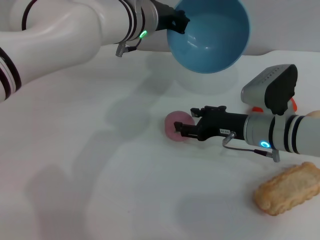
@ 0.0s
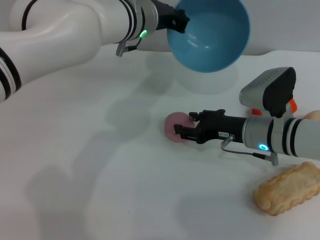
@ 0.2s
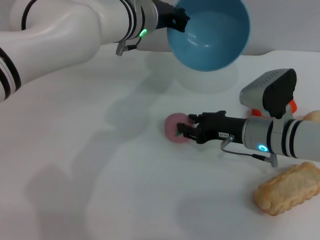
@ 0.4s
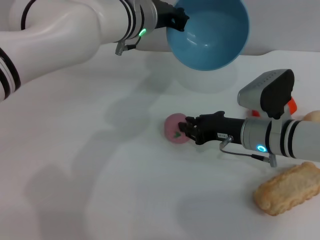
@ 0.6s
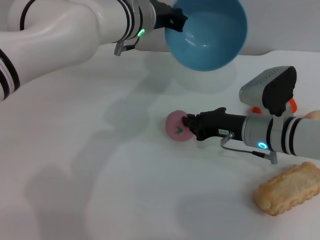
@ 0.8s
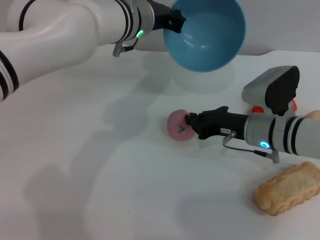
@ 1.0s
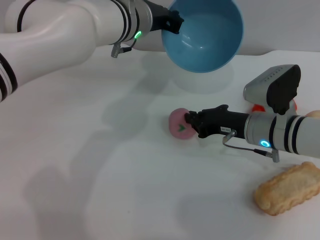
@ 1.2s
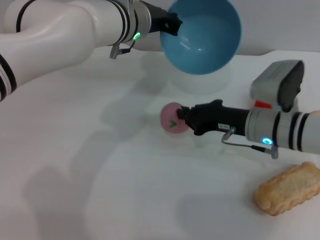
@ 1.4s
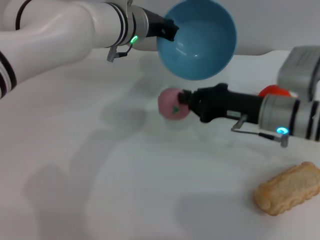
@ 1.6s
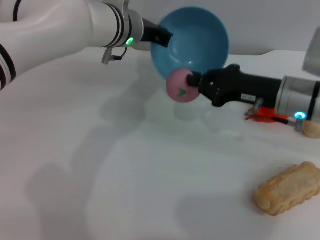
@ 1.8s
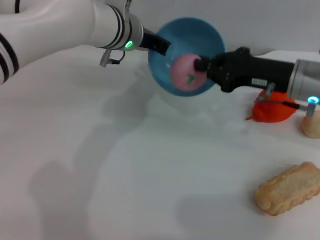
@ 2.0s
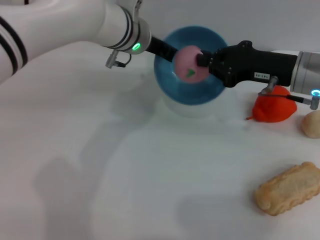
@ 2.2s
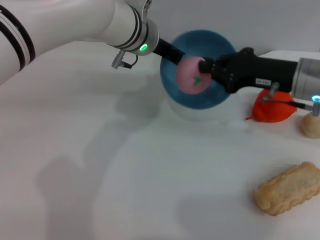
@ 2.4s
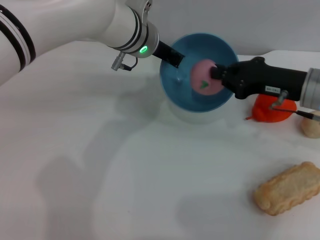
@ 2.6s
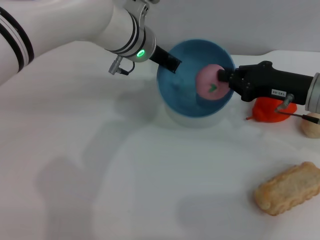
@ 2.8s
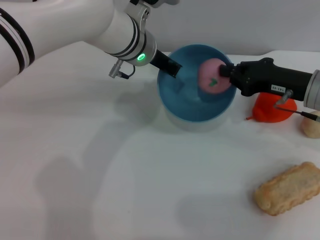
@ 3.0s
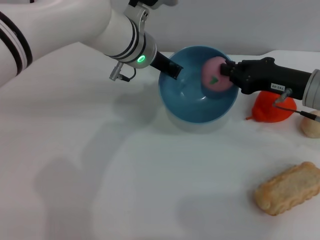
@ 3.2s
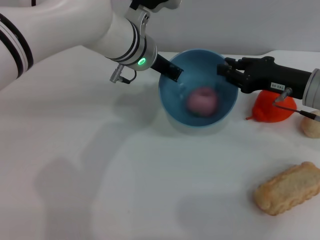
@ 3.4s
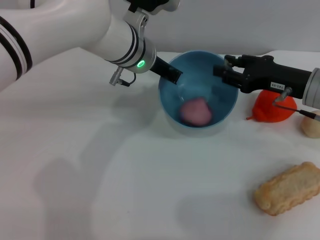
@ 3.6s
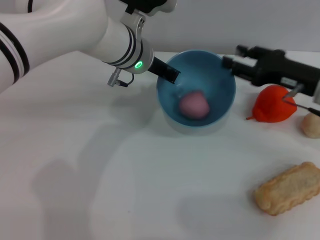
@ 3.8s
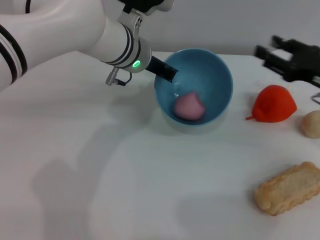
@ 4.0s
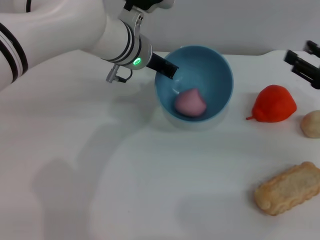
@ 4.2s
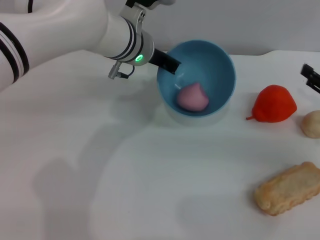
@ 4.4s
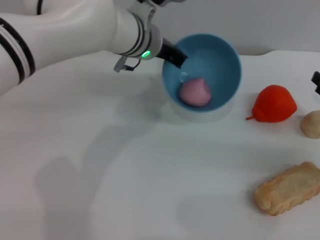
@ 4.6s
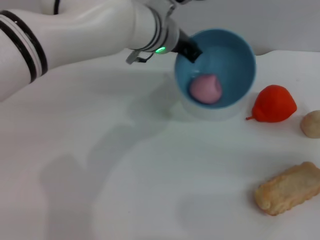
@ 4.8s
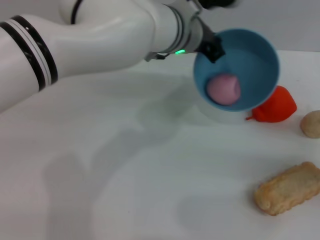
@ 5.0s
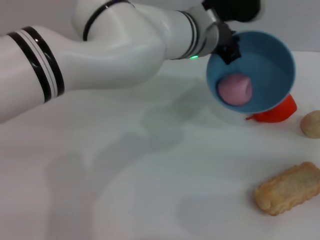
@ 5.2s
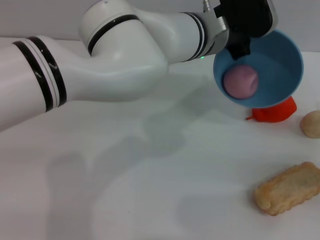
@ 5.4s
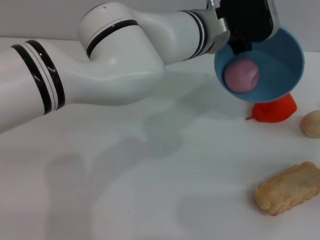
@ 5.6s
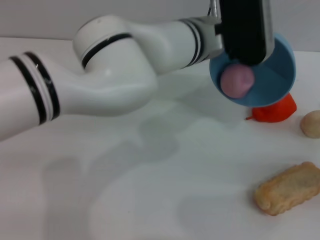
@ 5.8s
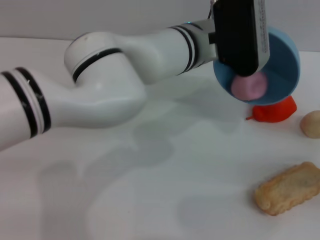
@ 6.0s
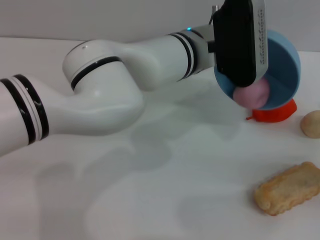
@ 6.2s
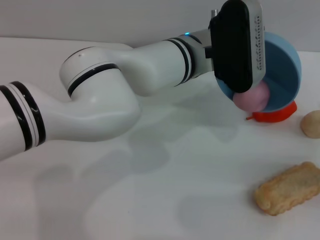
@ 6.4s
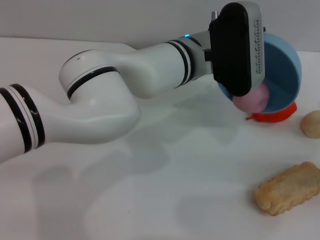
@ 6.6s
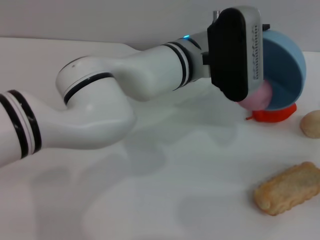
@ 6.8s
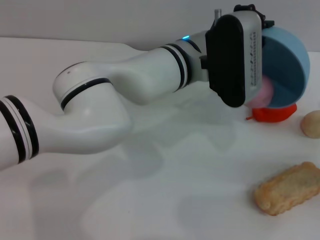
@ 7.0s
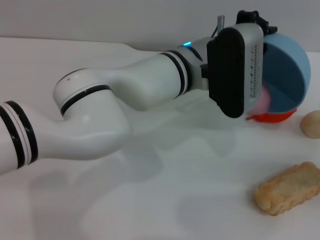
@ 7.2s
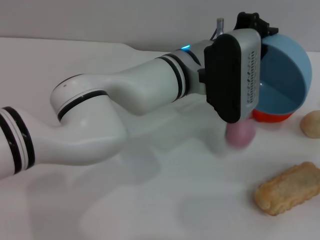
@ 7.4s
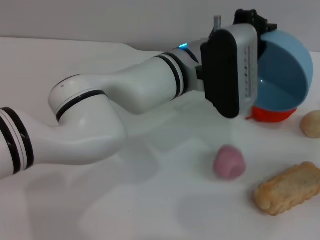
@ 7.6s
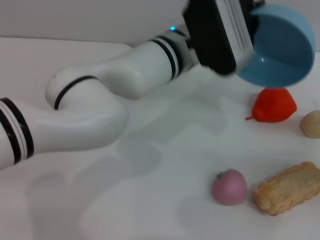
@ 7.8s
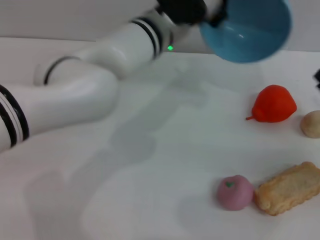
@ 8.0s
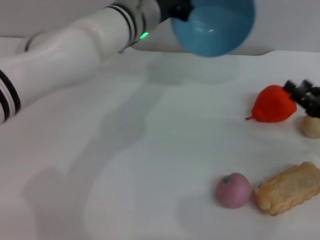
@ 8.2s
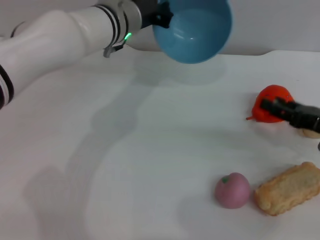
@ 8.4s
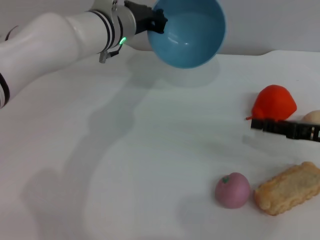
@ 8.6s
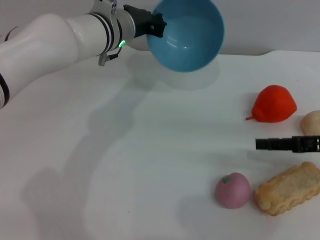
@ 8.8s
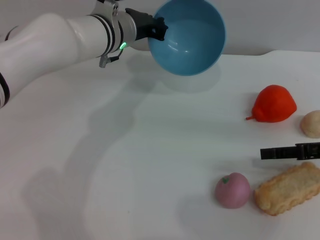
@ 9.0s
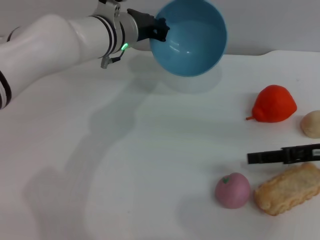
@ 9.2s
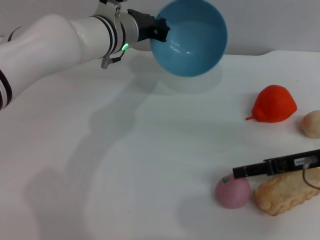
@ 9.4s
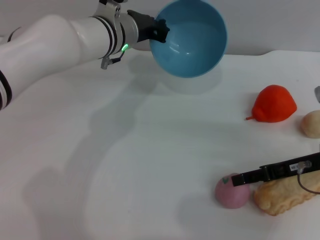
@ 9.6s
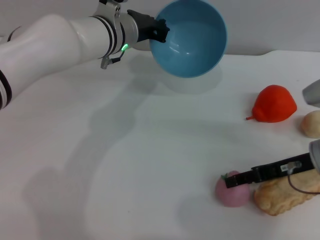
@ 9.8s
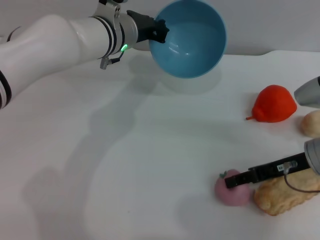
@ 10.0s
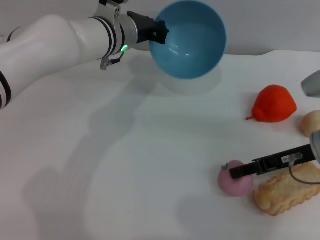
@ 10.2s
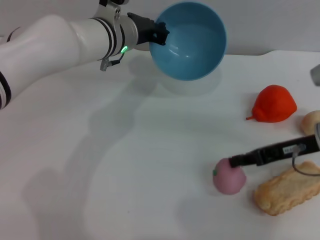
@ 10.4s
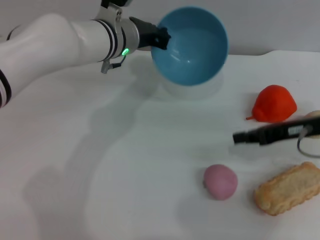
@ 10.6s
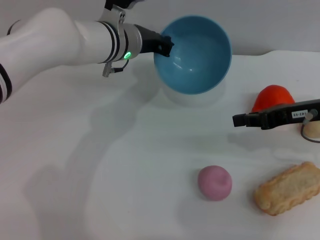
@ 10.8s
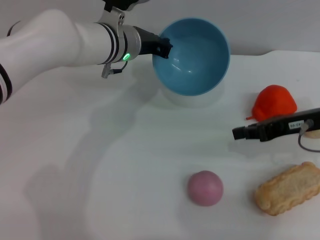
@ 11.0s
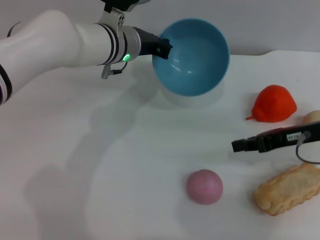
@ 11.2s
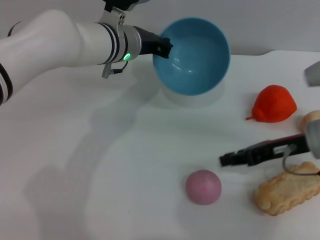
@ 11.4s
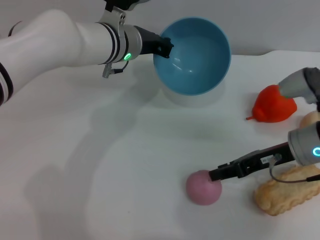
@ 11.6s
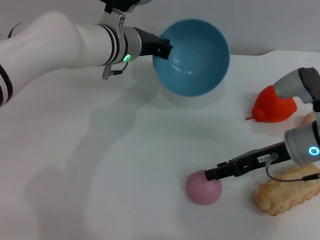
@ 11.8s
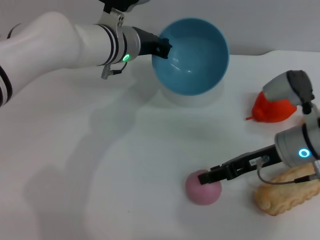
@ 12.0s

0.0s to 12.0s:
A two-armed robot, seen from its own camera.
Task of the whole recording: put the peach into the blue bowl and pour it out repeatedly.
Step, 1.8s to 3.8s: Place the peach into the bowl.
Step, 4.2s to 7.6s: Pour the peach out of bowl.
0.0s to 1.6s: The right gripper closes up.
1.6s to 3.0s: The right gripper shifts some 5 cm to the right.
3.0s to 4.4s: The right gripper moves to the right and backward, roughly 10 cm, and opens its fingers.
4.4s to 6.0s: The left gripper is displaced to the right by about 10 cm; the right gripper ends up roughly 5 cm from where it was.
7.6s to 9.0s: The left gripper travels to the left and forward by about 15 cm. Meanwhile the right gripper moves to the left, about 5 cm.
9.0s to 10.4s: The right gripper moves to the left, roughly 5 cm, and closes.
10.4s to 12.0s: The right gripper moves about 5 cm, and closes, then opens again.

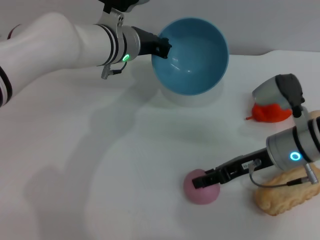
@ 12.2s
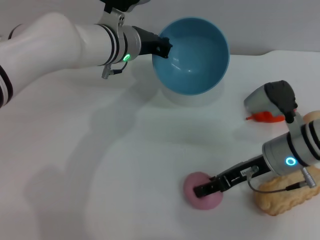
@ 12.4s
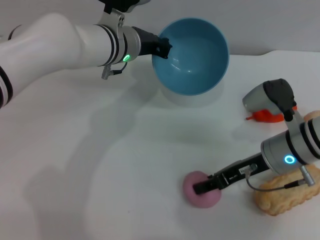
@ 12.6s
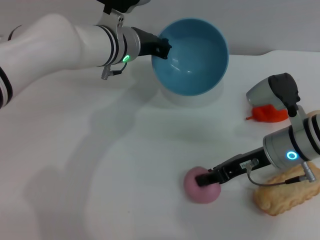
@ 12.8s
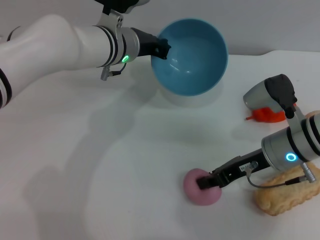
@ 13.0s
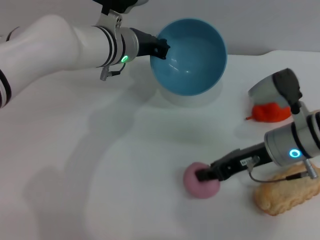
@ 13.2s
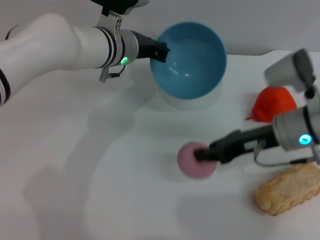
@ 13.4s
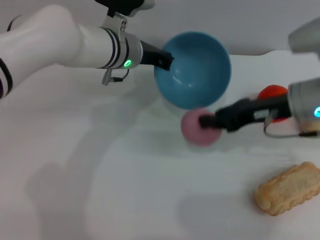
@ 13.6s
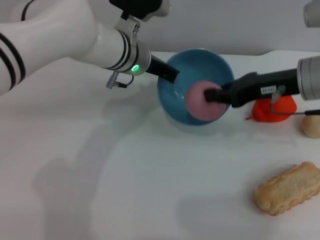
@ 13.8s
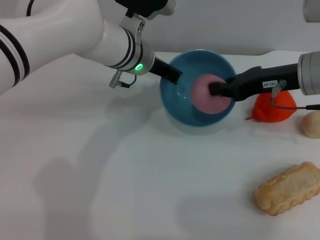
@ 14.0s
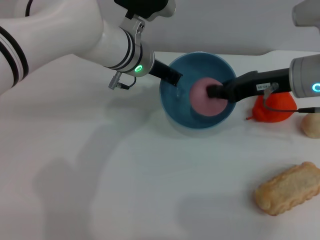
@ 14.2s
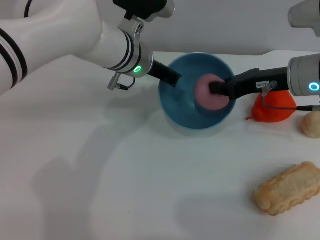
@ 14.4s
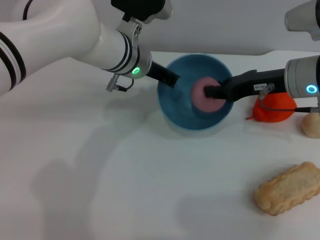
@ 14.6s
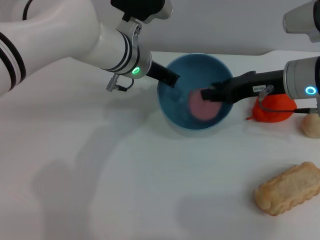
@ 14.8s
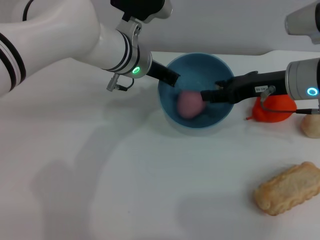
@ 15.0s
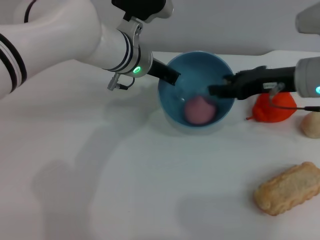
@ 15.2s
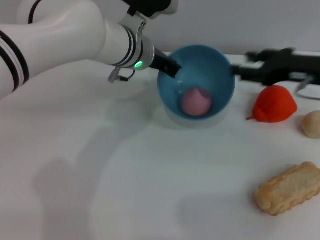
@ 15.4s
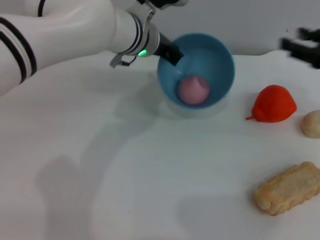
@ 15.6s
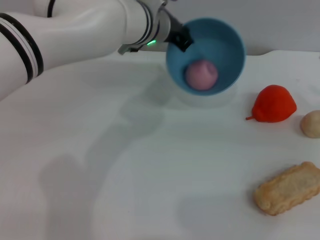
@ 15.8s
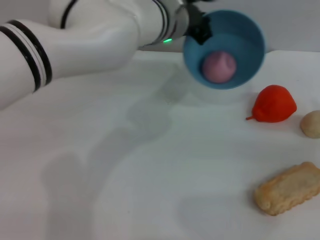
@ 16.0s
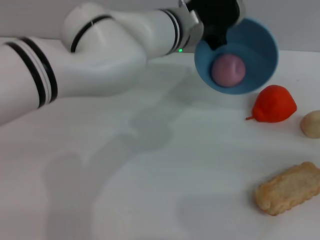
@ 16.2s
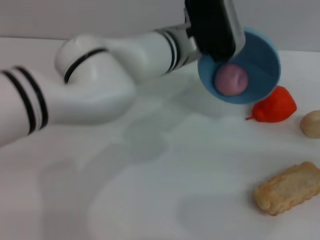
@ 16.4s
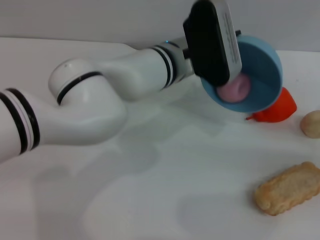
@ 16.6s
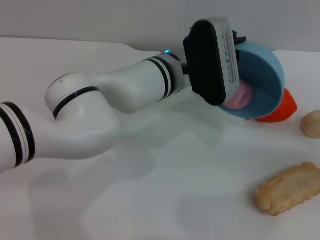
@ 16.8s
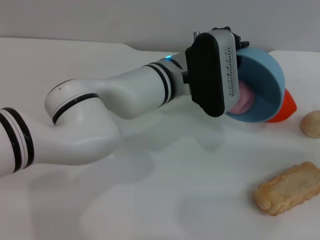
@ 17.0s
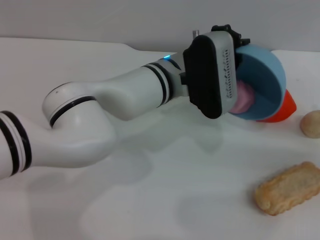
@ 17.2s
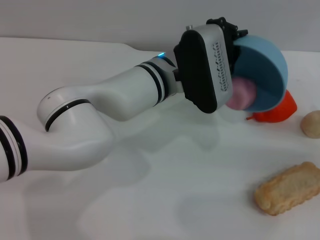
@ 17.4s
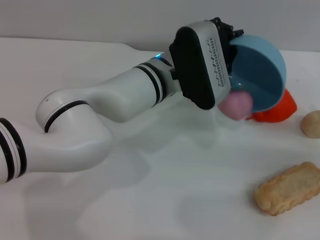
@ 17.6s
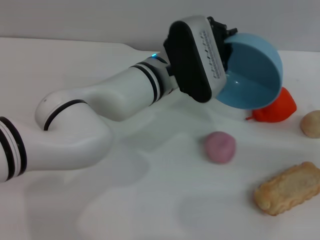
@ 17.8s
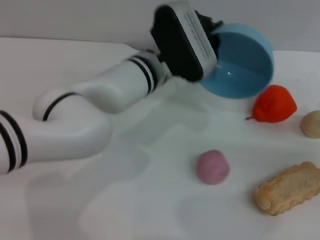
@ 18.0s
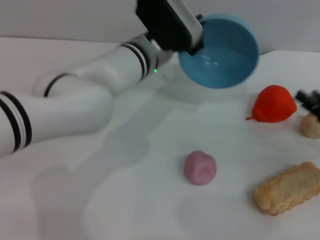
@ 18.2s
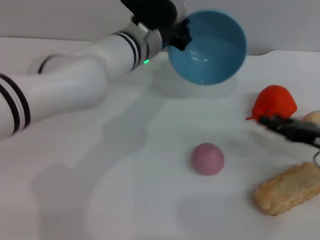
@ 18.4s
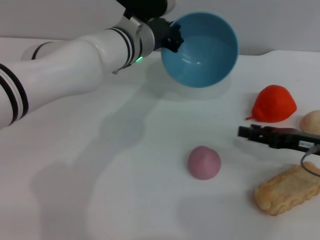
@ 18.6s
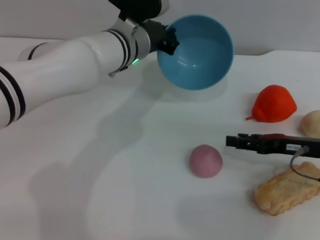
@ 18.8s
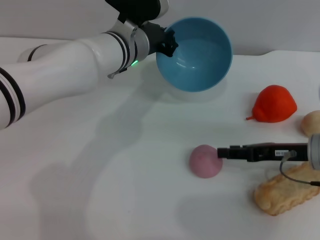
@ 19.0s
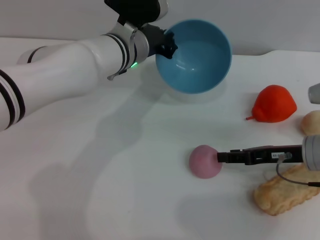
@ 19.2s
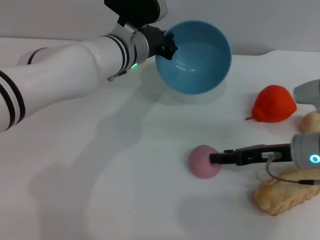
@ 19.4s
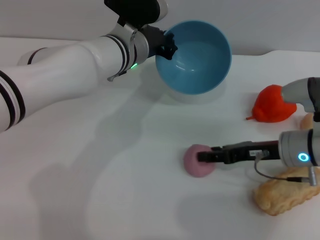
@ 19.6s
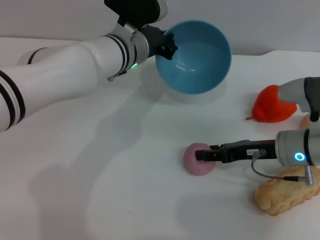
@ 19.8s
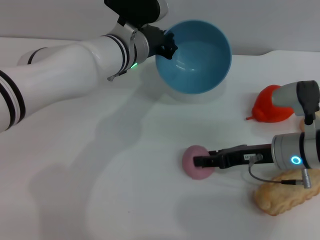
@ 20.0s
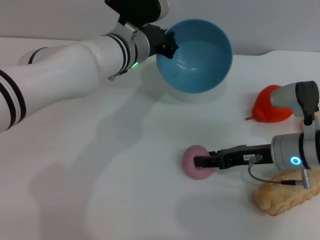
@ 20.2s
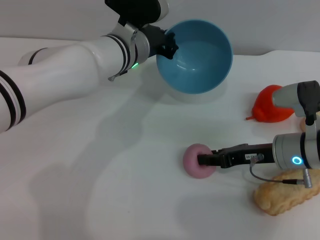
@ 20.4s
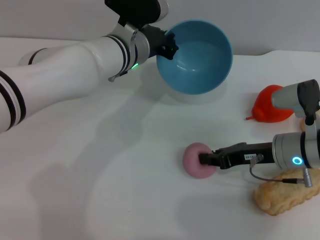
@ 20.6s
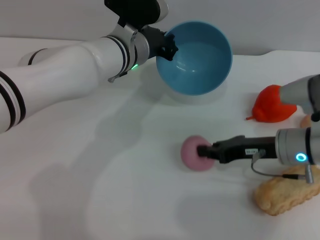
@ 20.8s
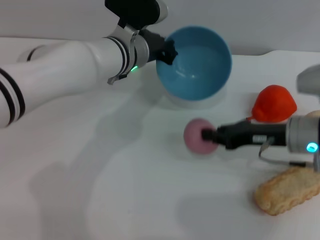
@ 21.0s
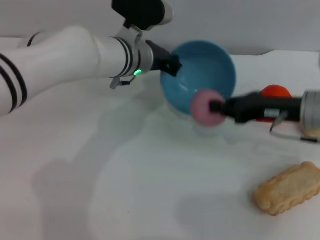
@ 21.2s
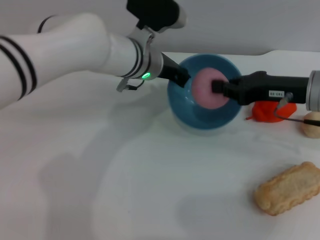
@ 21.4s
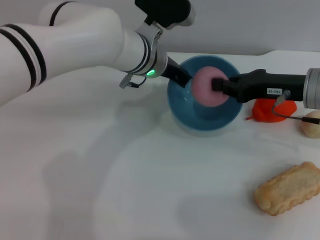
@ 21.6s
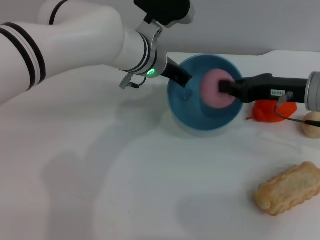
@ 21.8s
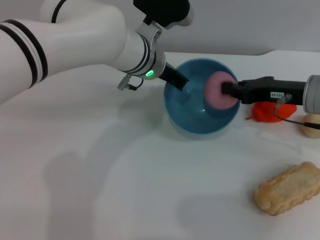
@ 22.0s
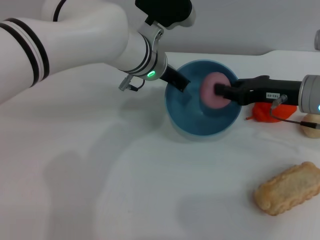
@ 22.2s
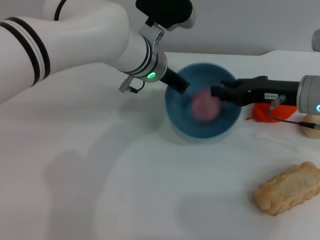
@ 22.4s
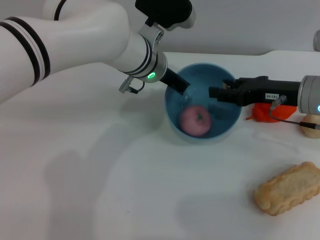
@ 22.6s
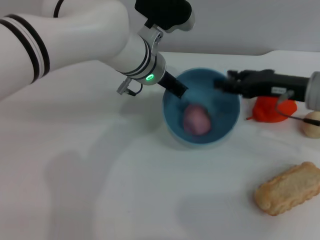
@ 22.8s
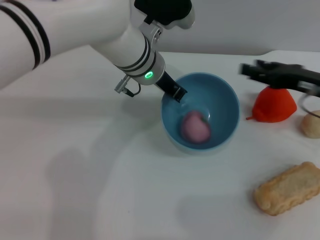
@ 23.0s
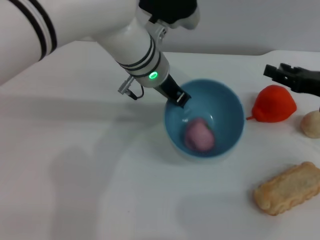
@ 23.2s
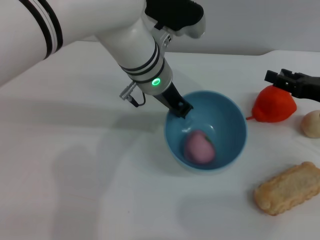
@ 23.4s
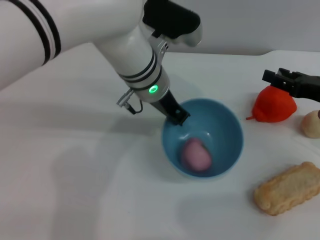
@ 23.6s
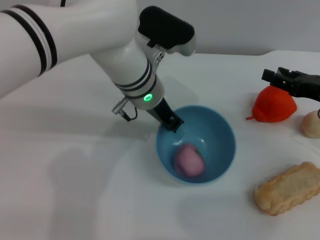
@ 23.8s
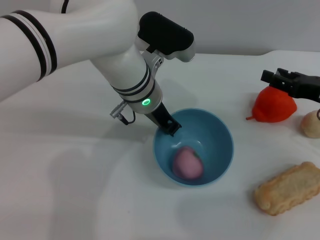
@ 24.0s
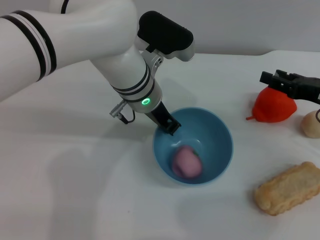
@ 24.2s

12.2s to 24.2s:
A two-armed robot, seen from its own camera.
Task of the whole recording: put the peach into the blue bowl and pour it out repeatedly.
Step, 13.8s to 16.0s: Place the peach into the bowl.
Step, 16.2s to 18.0s: Pour the peach out of bowl.
Step, 18.2s to 20.8s: Pick up the peach with the right gripper.
Step, 21.2s to 23.0s: Place the peach into the bowl.
12.2s to 13.8s: The right gripper moves upward, roughly 10 cm, and closes its fingers.
13.8s to 15.2s: The right gripper opens its fingers.
15.2s to 16.6s: The right gripper heads to the right, backward and downward, covering roughly 20 cm, while the left gripper moves to the right, approximately 5 cm.
18.2s to 19.8s: The right gripper shifts about 15 cm to the left.
19.8s to 21.2s: The right gripper is displaced upward by approximately 5 cm, and closes.
21.2s to 22.6s: The right gripper opens.
22.6s to 24.2s: The right gripper heads to the right, covering approximately 5 cm.
